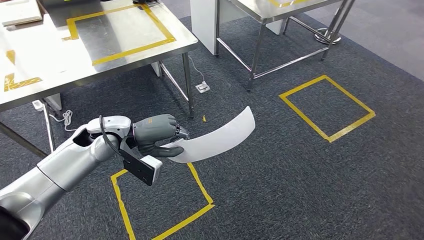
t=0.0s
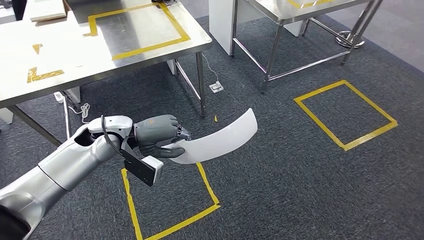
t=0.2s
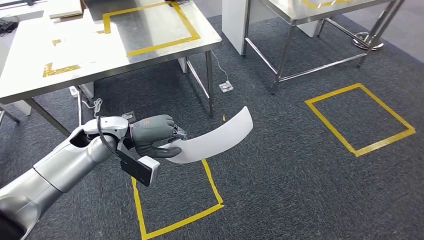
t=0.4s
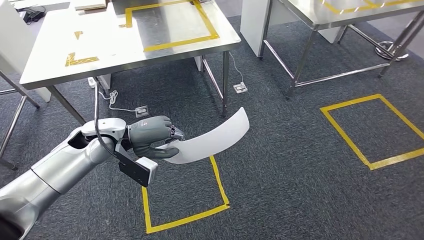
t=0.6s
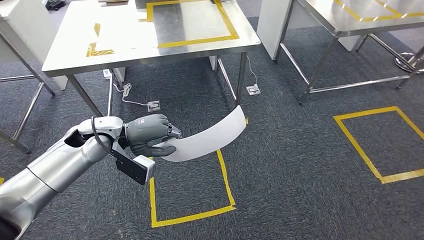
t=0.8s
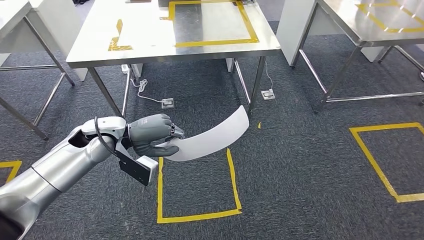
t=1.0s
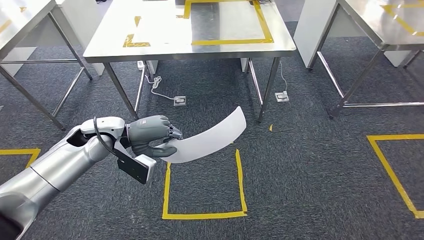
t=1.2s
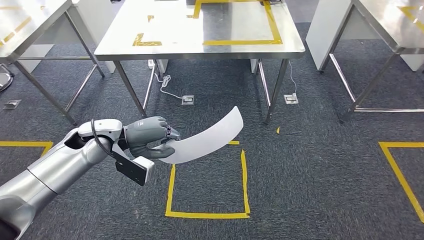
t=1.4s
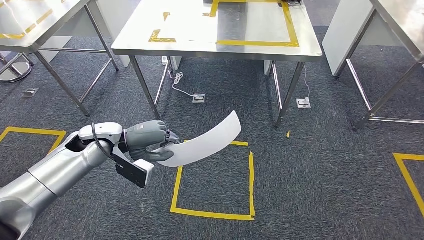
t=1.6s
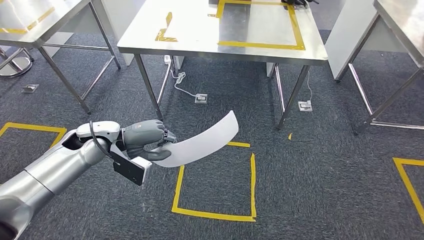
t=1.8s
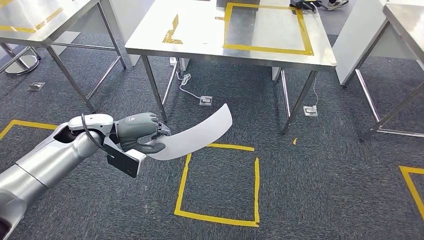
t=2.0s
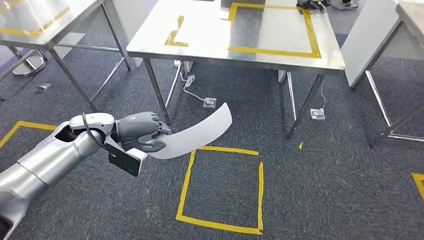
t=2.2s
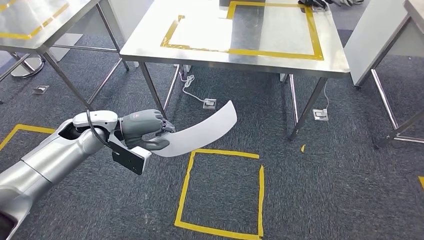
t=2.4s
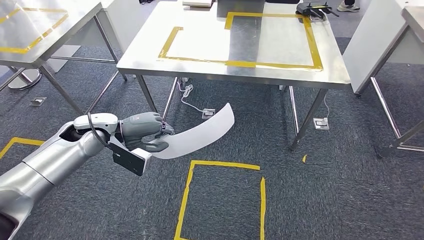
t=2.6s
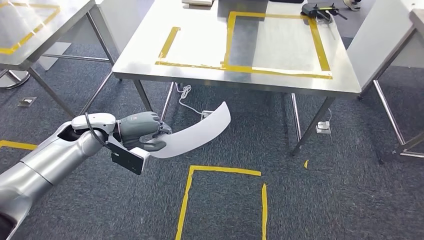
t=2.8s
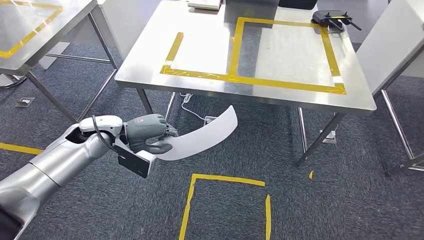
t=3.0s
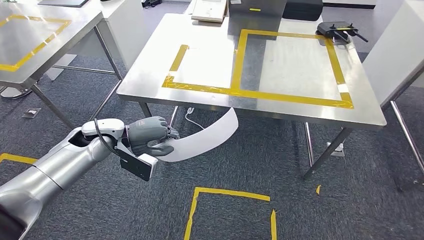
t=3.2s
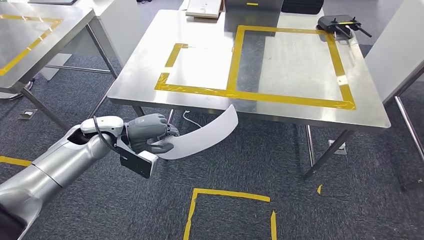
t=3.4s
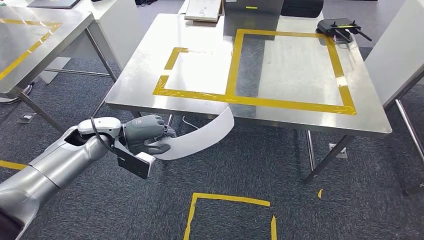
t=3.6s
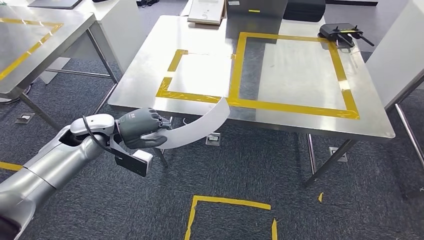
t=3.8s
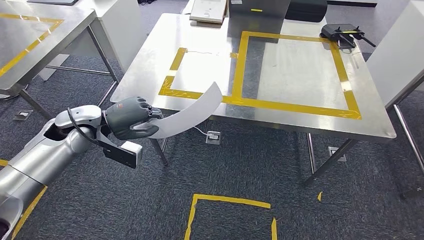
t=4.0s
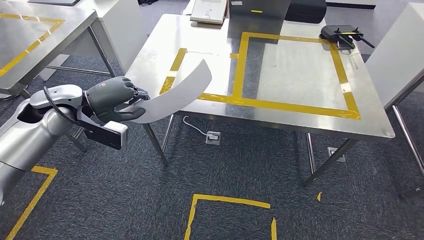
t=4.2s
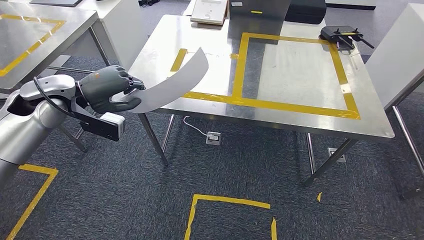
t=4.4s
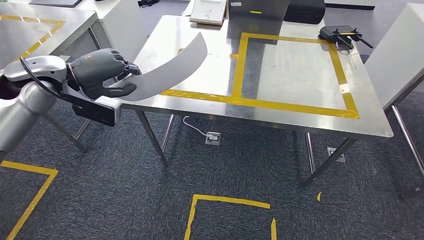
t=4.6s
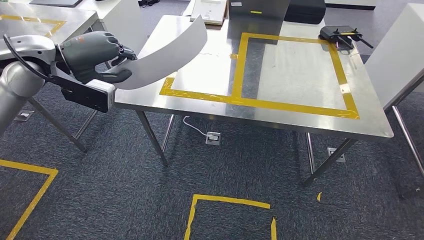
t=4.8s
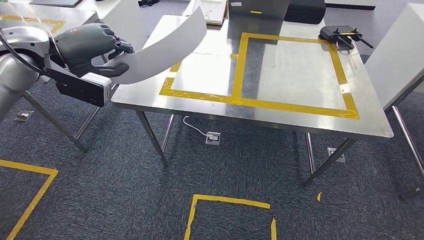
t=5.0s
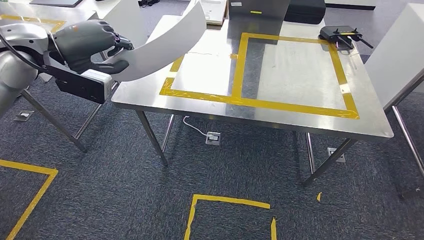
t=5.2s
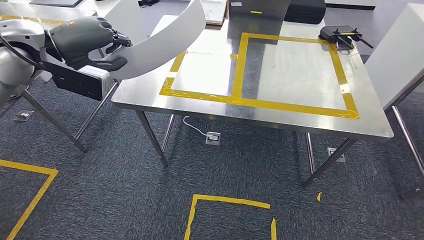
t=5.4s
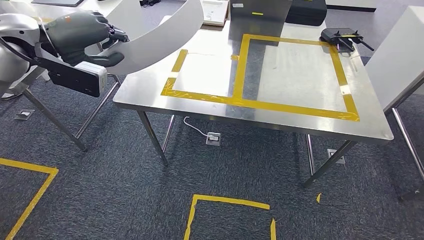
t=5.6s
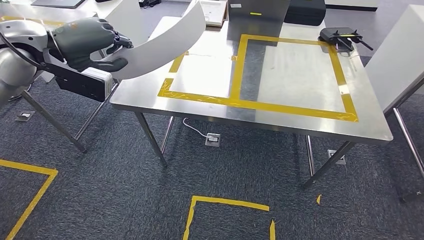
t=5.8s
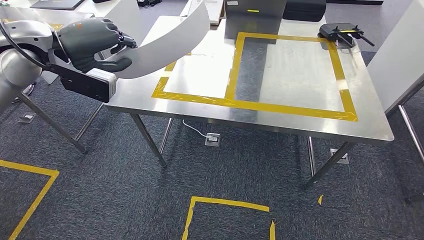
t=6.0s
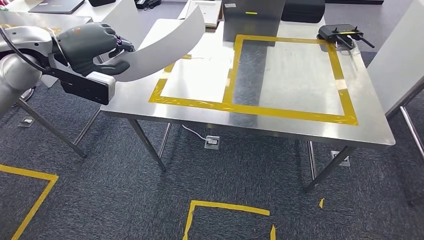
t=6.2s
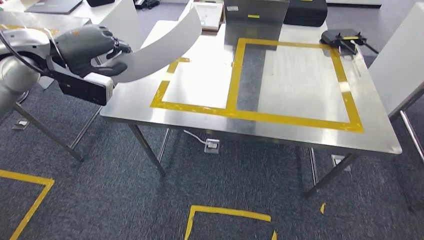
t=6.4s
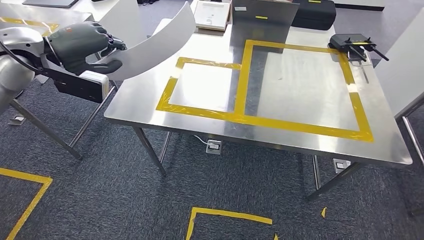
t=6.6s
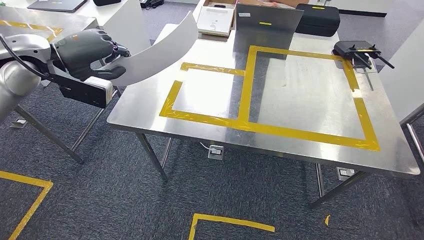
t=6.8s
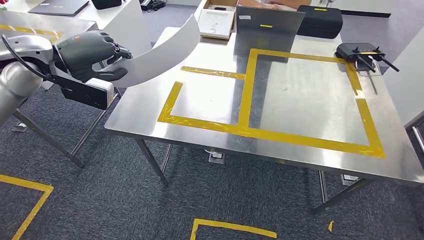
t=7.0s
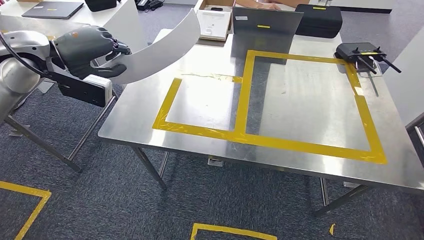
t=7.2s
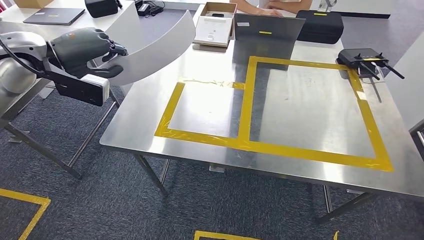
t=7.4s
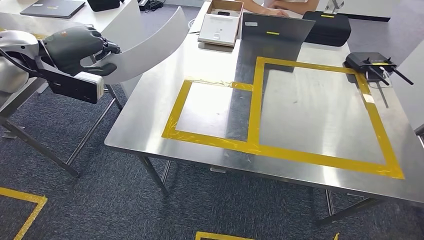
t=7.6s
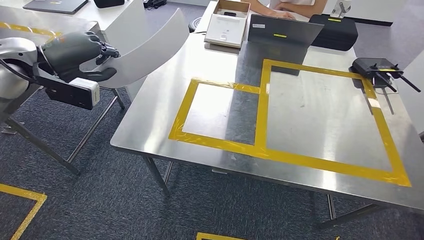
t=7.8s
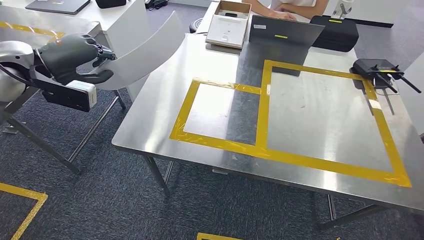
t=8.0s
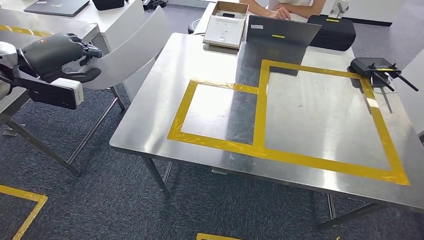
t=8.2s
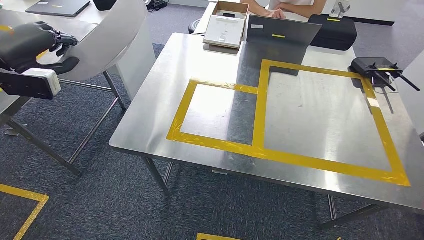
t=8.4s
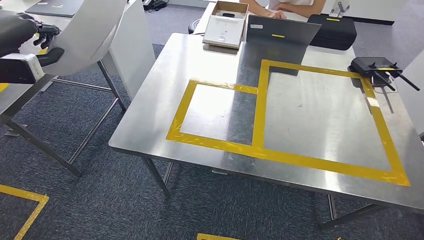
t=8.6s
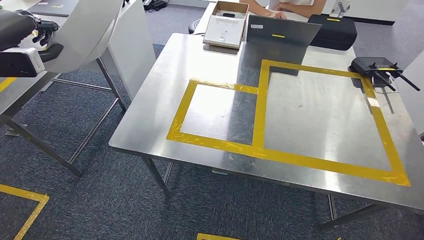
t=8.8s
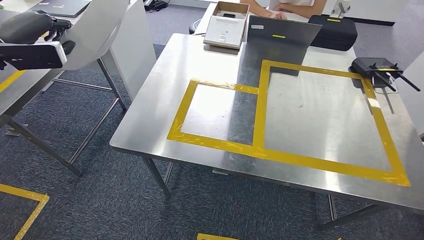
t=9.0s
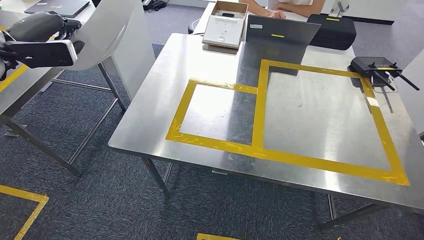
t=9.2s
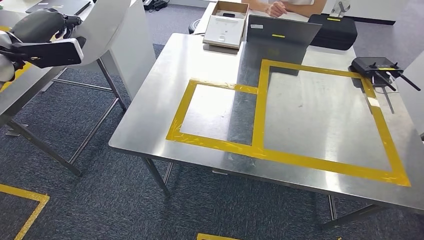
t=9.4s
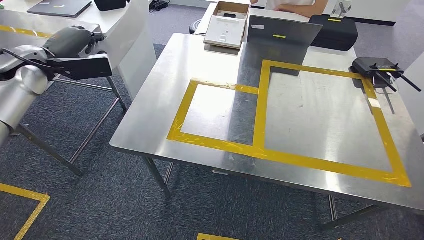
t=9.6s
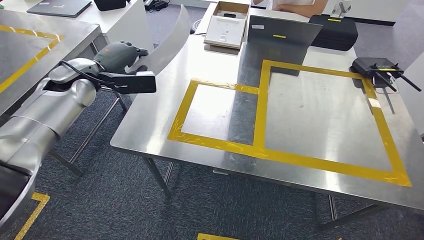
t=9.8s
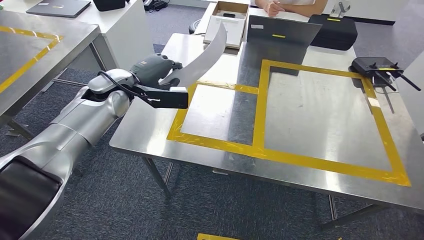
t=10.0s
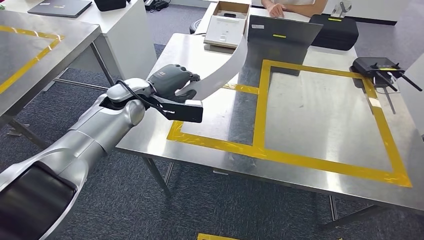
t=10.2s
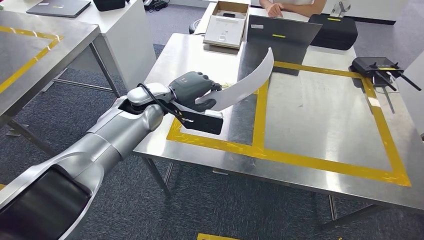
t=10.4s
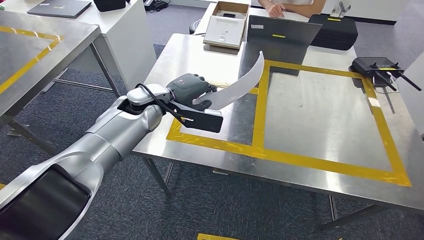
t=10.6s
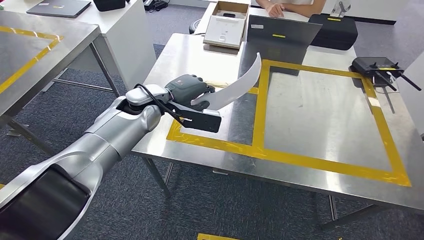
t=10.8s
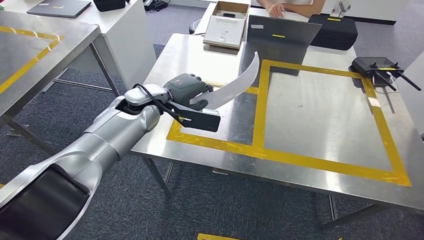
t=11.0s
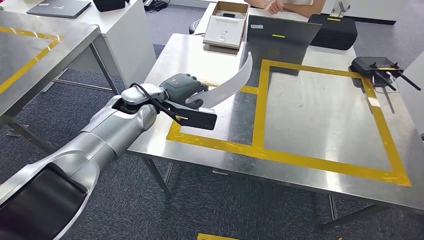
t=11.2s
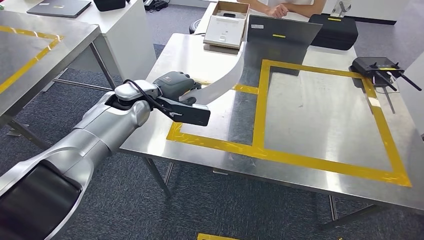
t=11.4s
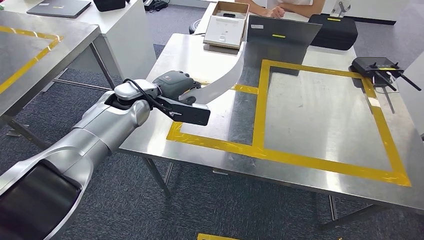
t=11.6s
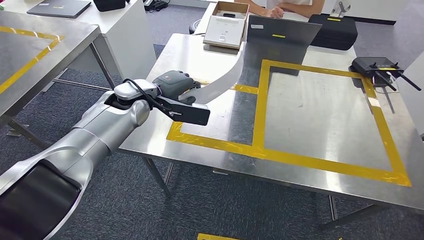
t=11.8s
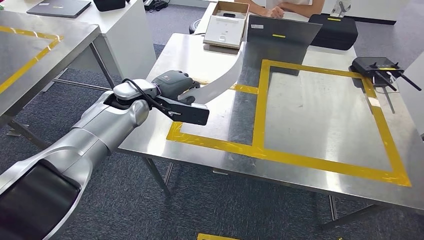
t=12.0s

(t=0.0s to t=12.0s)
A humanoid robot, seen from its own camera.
Step, t=0.0s - t=4.6s: Move the small parts to the workbench.
t=10.4s - t=12.0s: The hands stay close to where they were, moving slightly.

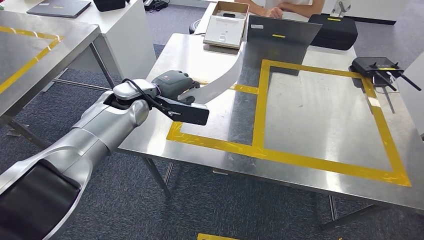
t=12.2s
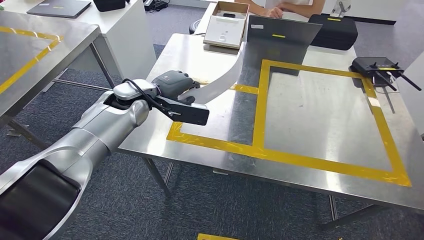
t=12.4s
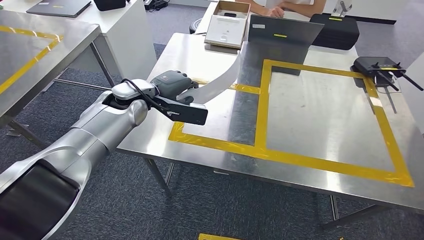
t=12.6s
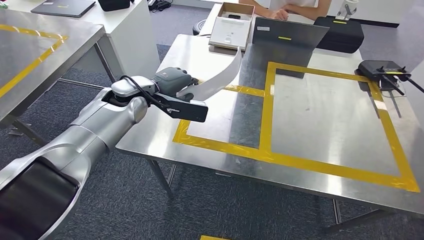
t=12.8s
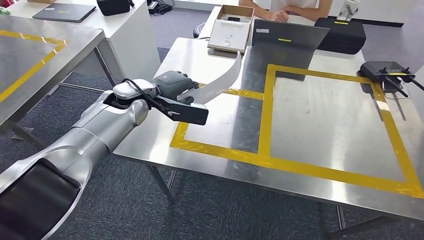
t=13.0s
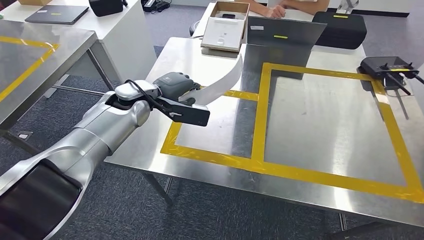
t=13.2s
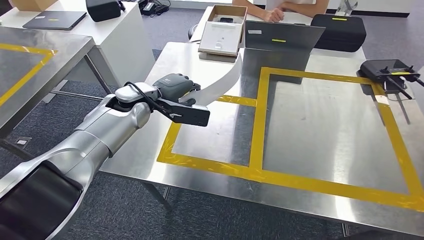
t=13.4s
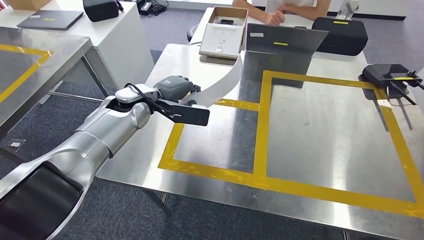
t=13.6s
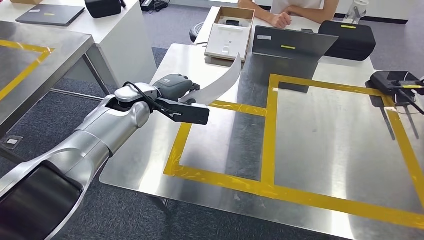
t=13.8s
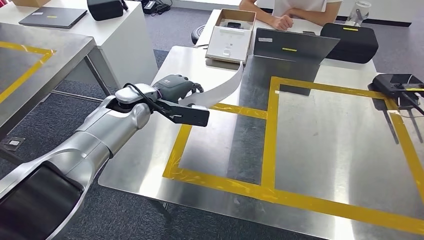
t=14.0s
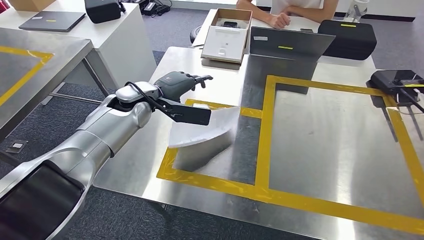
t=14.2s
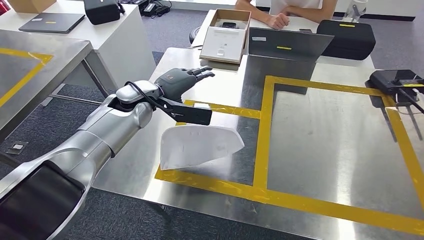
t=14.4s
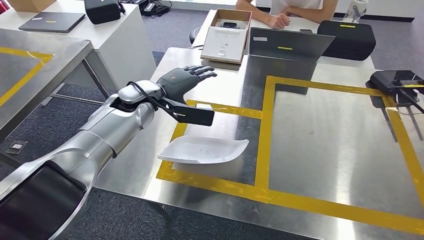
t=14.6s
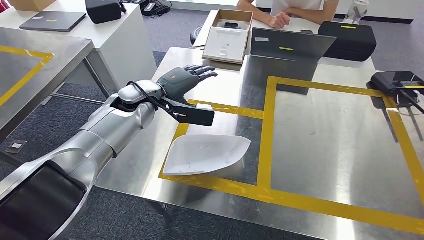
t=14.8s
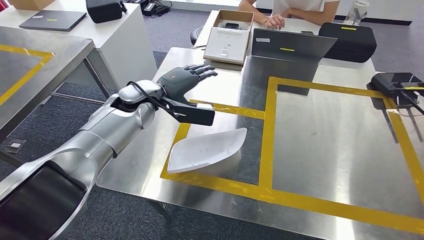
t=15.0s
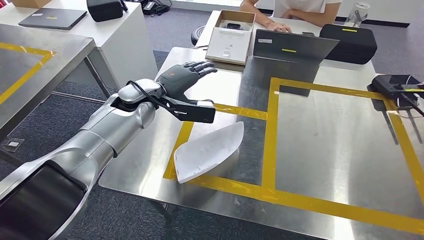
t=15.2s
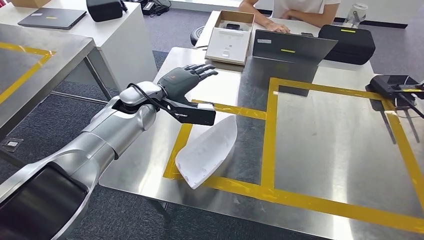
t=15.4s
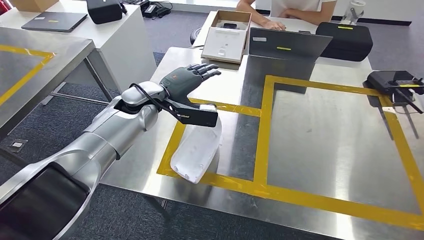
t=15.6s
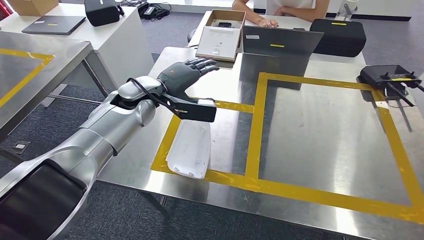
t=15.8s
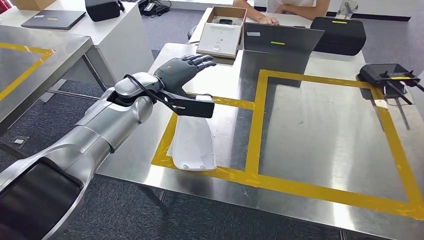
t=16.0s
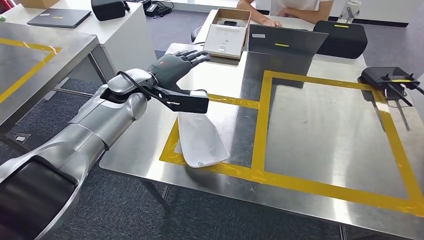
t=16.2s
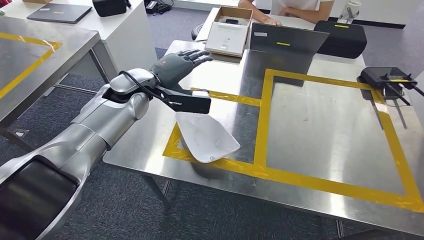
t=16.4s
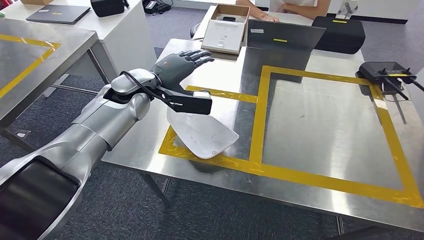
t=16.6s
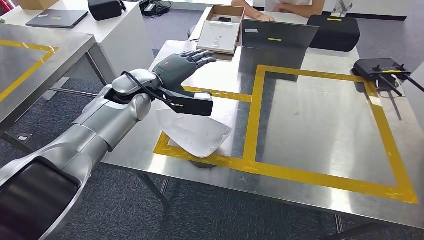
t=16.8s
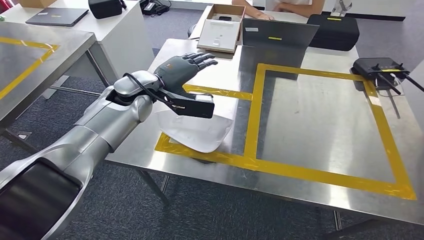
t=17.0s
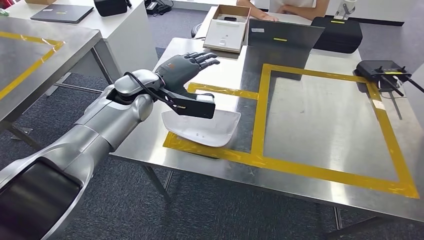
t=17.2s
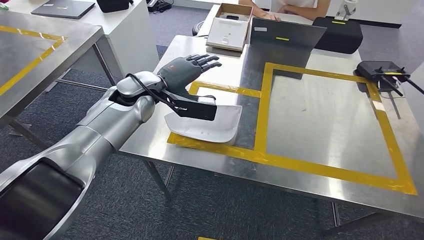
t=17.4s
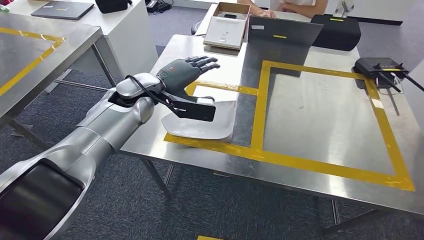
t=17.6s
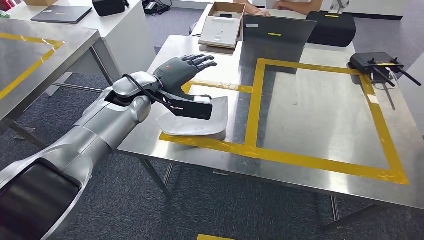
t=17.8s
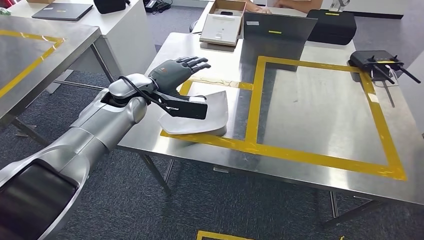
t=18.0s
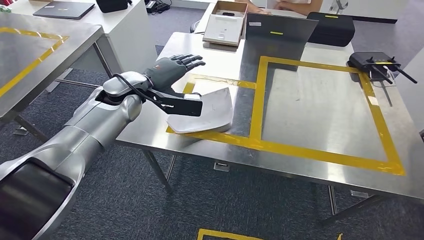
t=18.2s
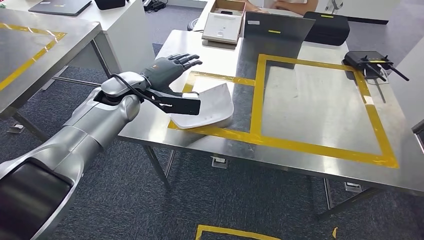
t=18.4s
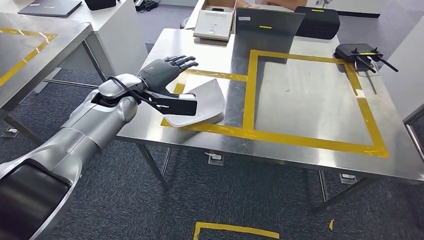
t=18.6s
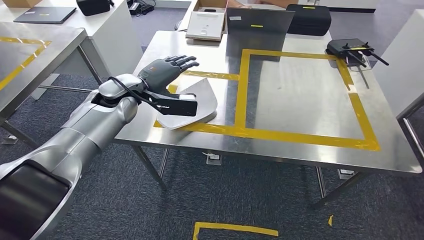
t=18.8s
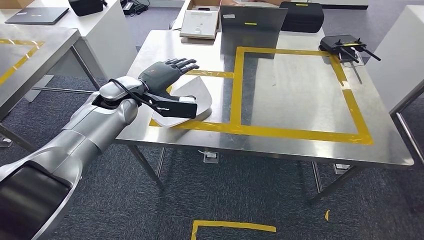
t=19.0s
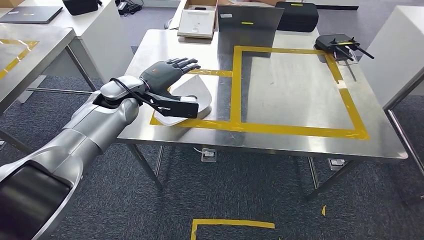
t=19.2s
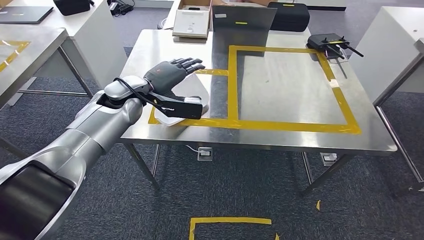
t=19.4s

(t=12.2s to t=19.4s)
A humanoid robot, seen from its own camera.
Step, t=12.2s - t=14.8s: Insert the small parts into the corresponding slots on the workbench.
